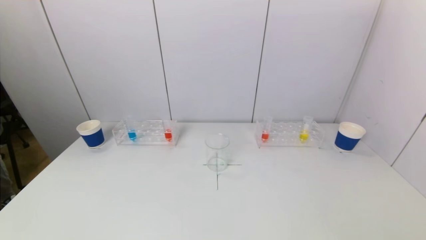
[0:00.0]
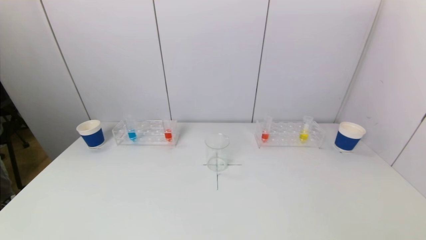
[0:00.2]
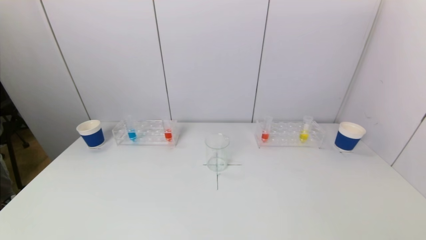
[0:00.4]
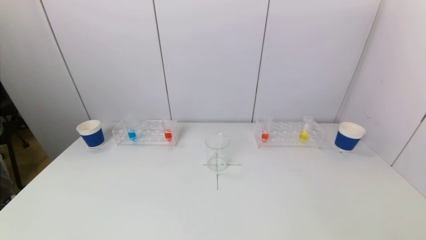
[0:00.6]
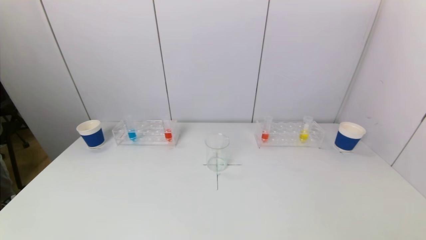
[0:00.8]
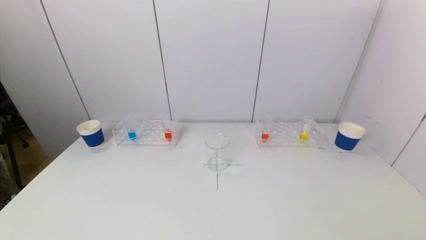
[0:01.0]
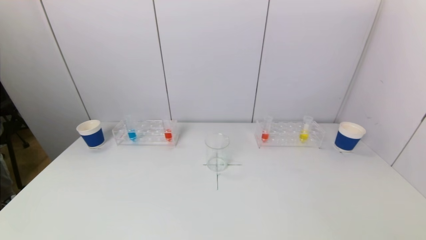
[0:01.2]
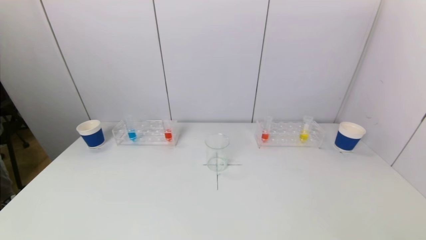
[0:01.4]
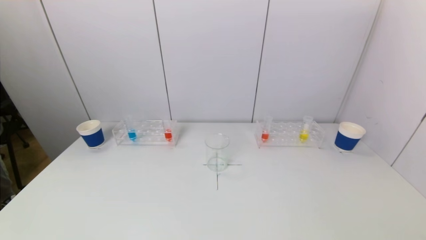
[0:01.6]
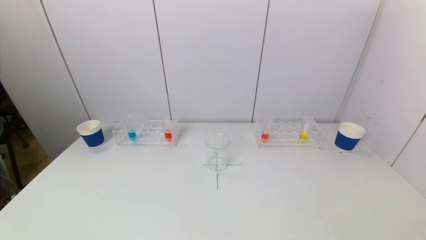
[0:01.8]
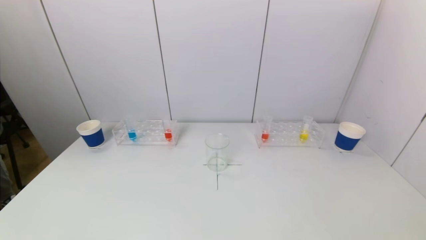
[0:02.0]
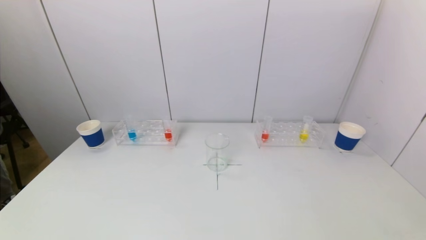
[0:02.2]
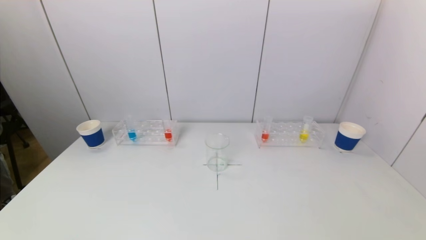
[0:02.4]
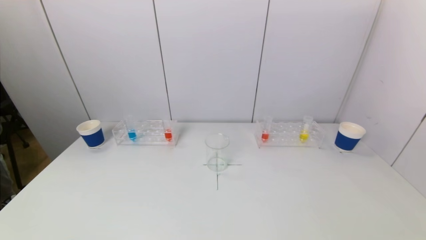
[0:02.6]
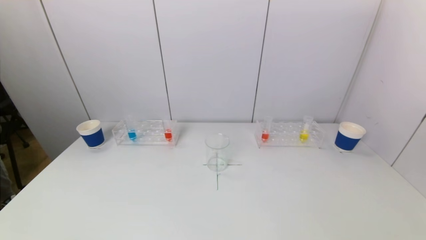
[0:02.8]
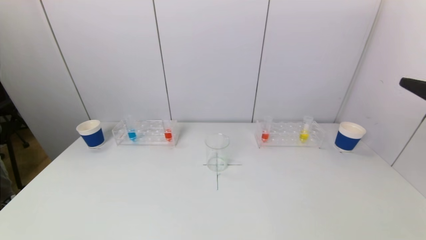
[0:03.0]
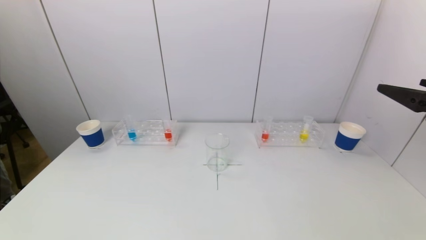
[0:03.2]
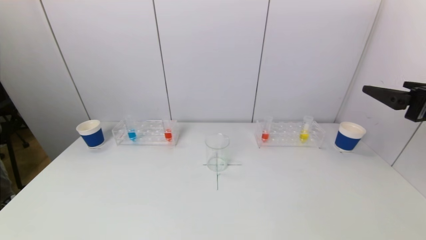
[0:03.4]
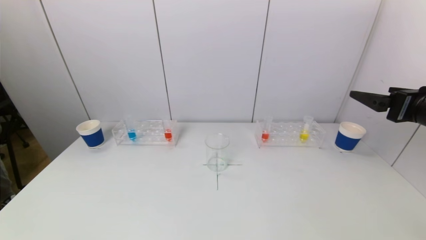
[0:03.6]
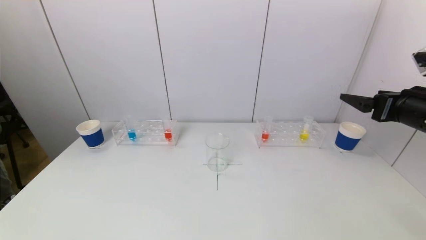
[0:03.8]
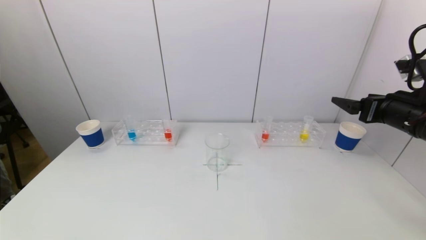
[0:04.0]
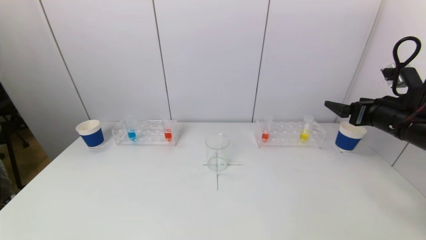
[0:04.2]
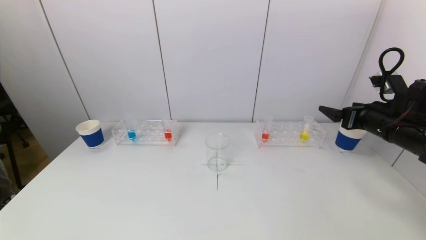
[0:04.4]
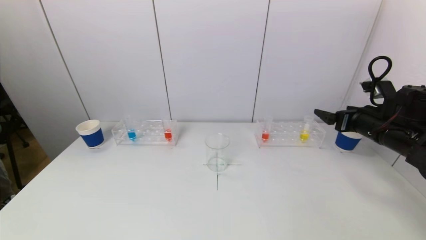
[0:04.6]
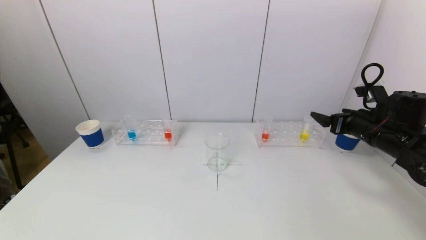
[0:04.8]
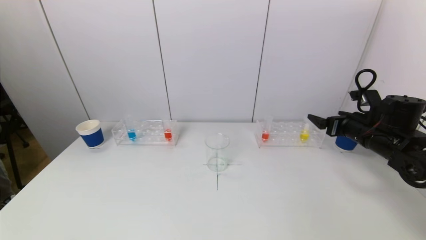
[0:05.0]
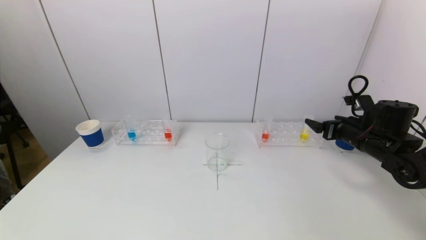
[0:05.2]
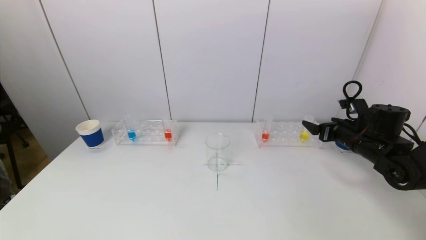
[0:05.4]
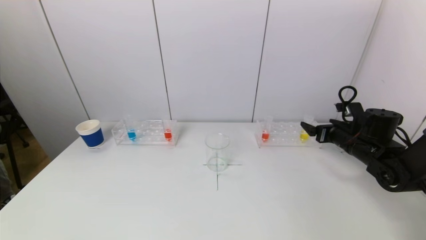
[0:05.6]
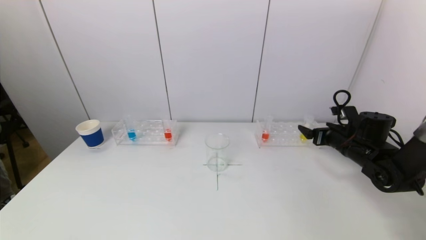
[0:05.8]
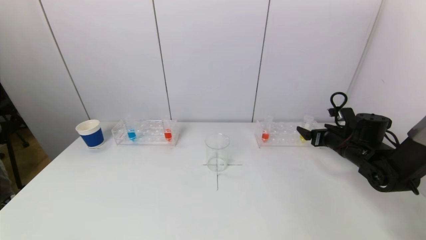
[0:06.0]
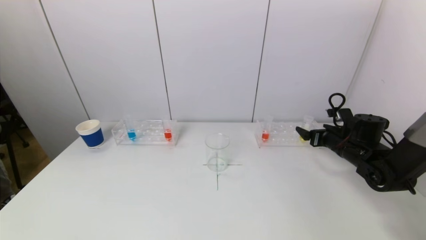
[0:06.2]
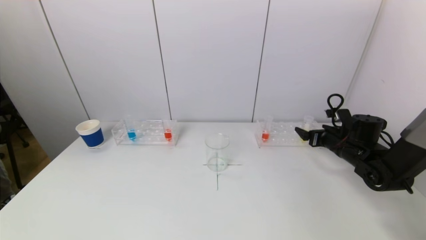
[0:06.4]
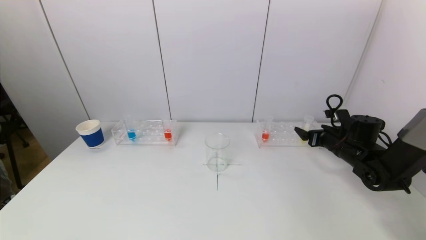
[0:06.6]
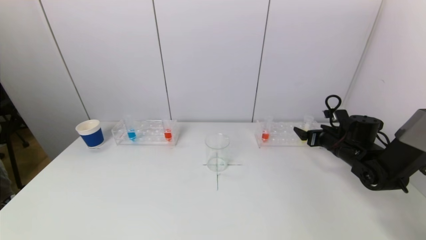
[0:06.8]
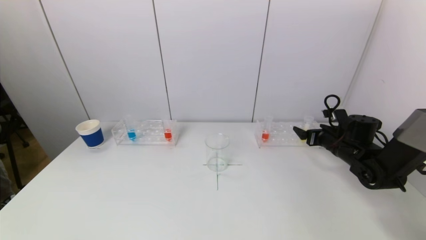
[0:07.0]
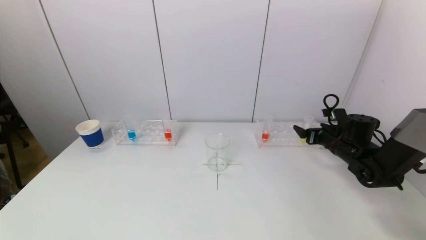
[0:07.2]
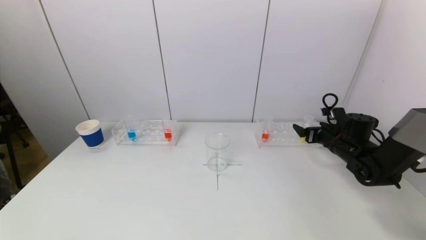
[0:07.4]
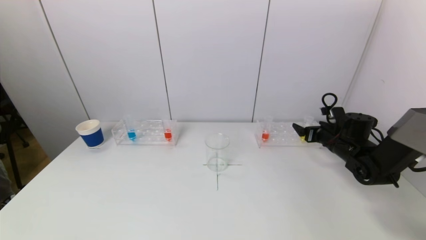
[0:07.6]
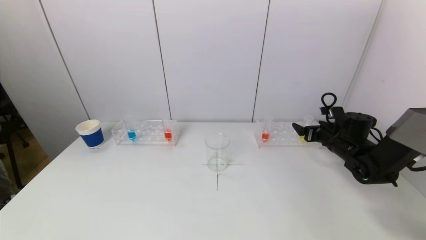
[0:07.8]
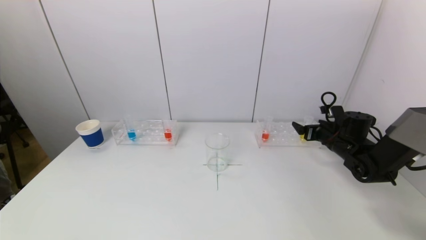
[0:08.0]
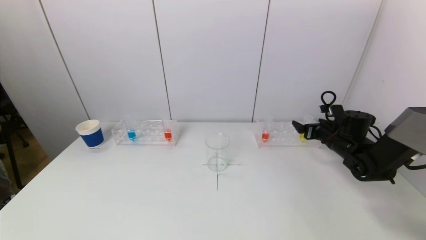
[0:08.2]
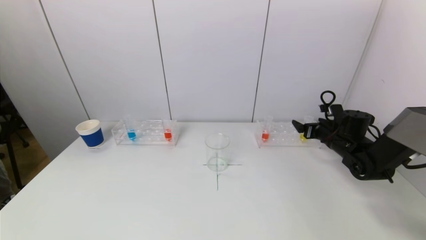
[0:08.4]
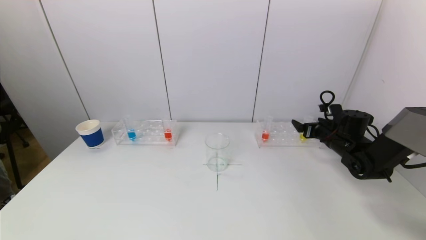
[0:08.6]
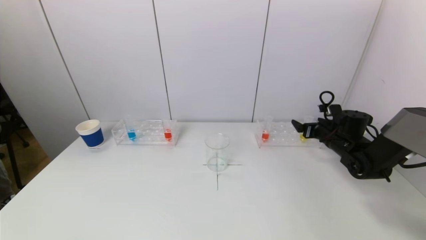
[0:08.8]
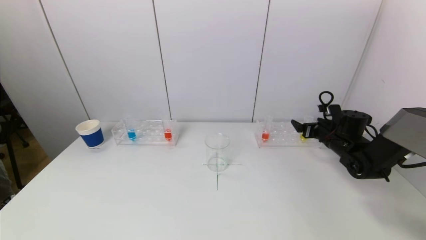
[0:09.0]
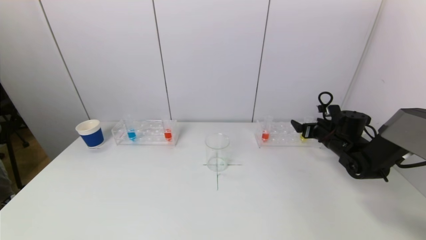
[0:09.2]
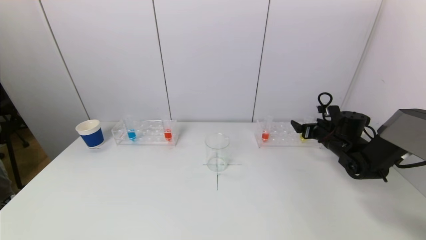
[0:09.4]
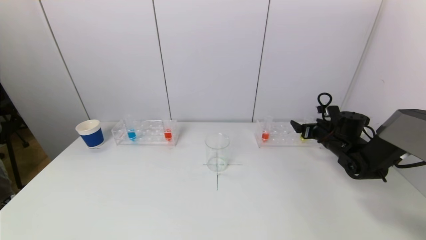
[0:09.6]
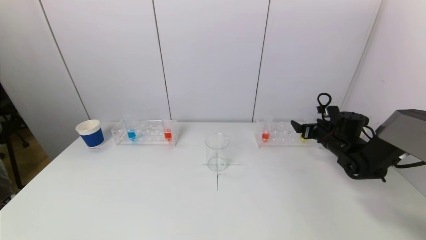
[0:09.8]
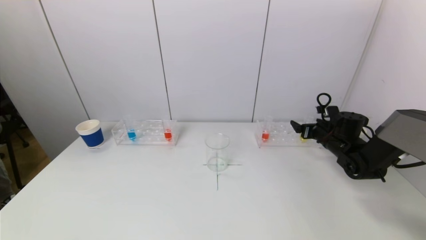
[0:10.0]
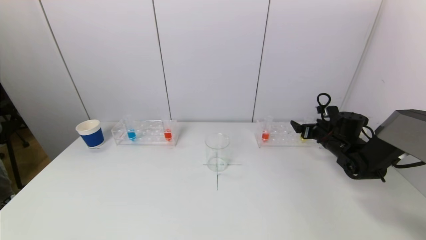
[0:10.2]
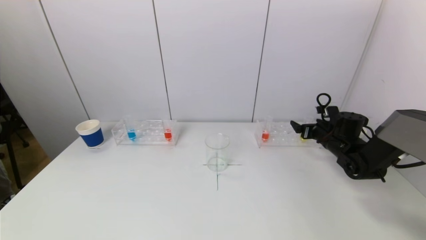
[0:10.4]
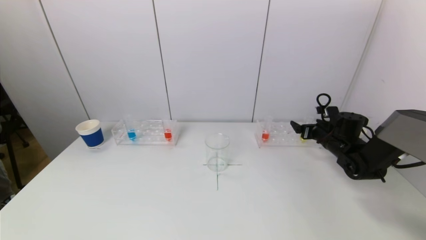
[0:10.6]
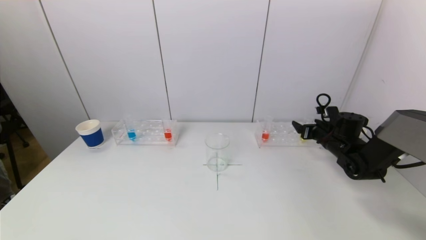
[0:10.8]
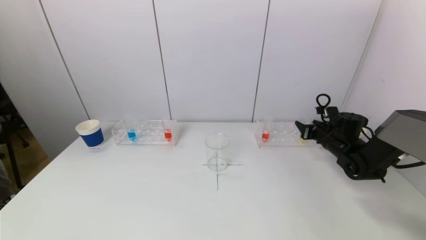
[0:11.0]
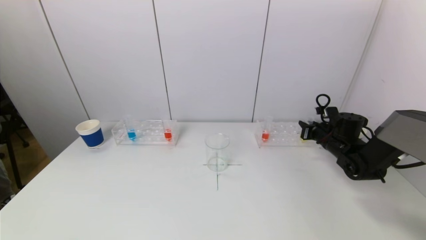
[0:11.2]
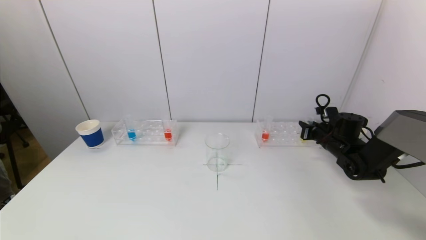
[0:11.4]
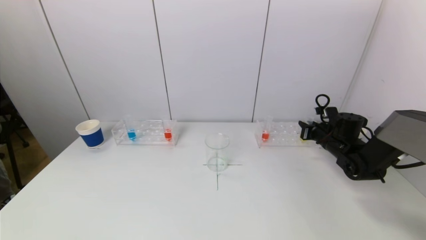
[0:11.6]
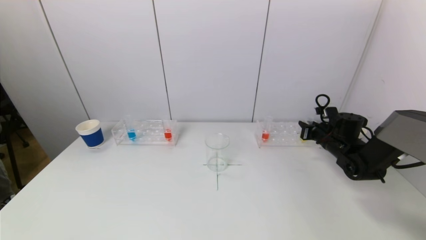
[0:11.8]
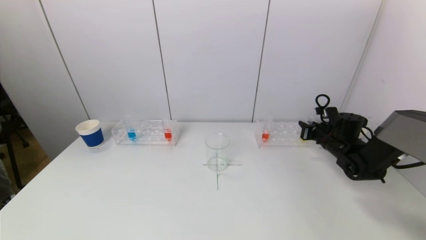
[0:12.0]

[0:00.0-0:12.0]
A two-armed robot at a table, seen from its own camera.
Task of the whole recording: pick up a test tube with pigment on left test tube rack and a test tube with pigment on right test tube rack by grippers and pour them into the beaker.
Step, 0:00.0 to 0:11.8: Grasp the yellow reagent with the right gripper.
0:03.0 to 0:04.4: The right gripper shifts roughly 20 cm forward and downward.
0:04.4 to 0:06.0: The right gripper goes roughly 10 cm downward and forward.
0:06.0 to 0:09.0: There are only small adjustments of the grippers.
0:09.0 to 0:10.4: Both grippers stay about where they are.
0:10.4 to 0:12.0: The right gripper closes.

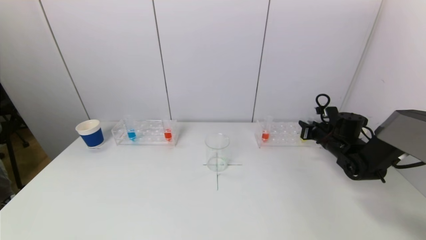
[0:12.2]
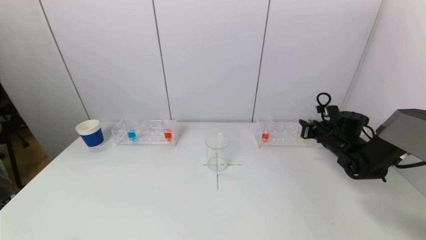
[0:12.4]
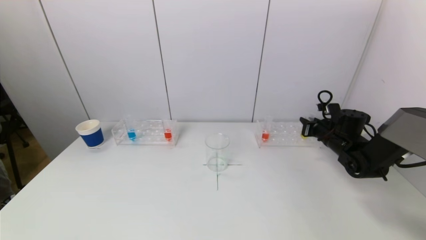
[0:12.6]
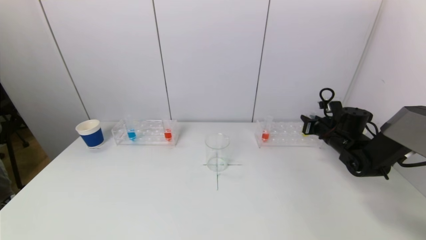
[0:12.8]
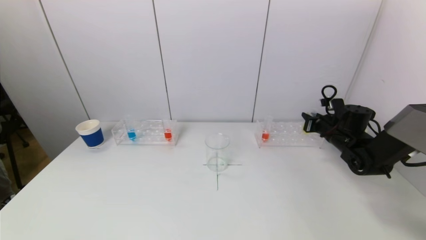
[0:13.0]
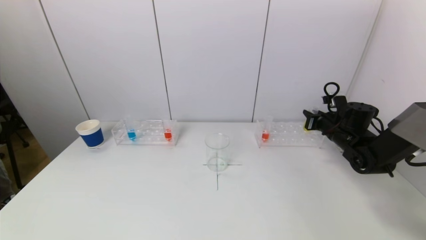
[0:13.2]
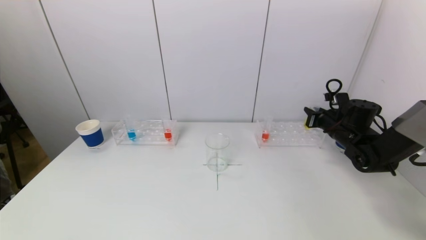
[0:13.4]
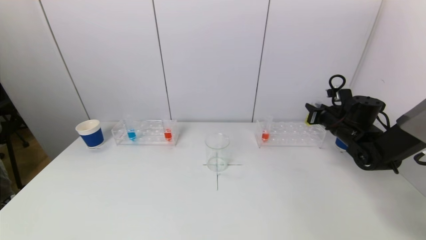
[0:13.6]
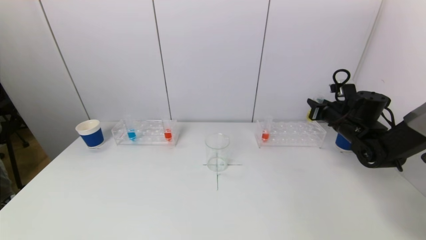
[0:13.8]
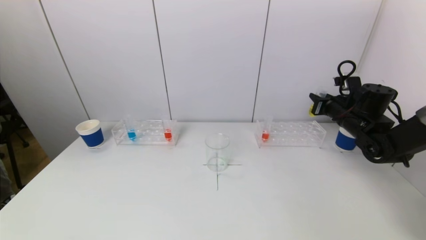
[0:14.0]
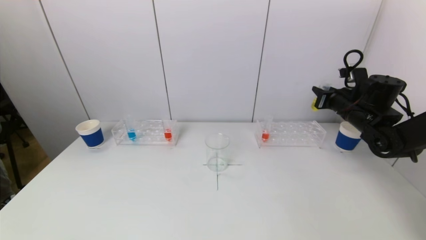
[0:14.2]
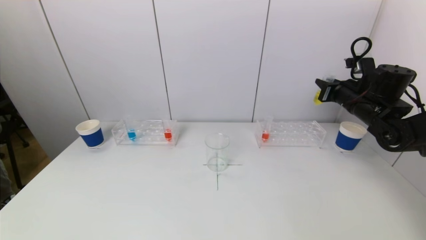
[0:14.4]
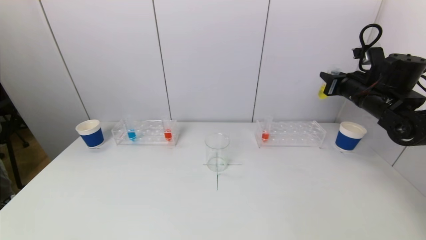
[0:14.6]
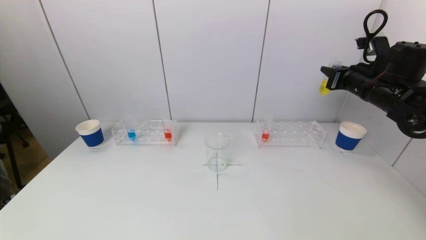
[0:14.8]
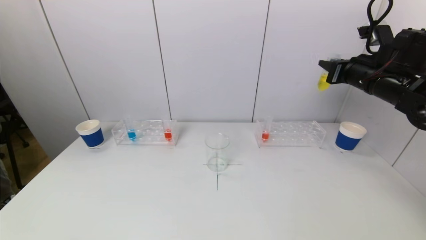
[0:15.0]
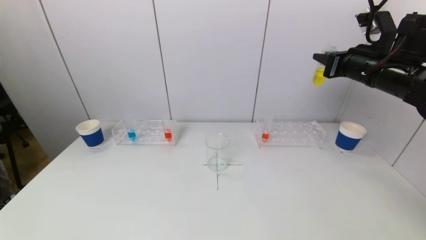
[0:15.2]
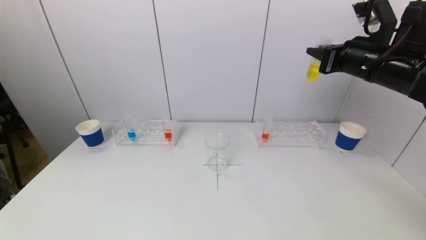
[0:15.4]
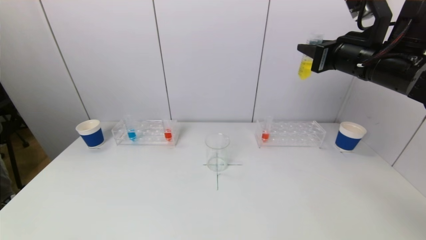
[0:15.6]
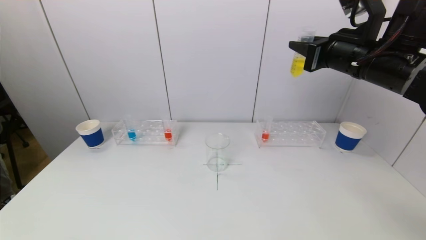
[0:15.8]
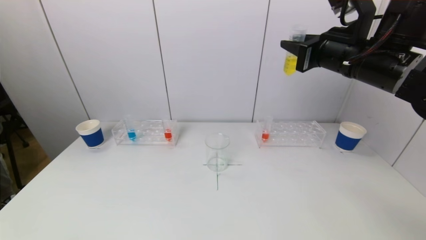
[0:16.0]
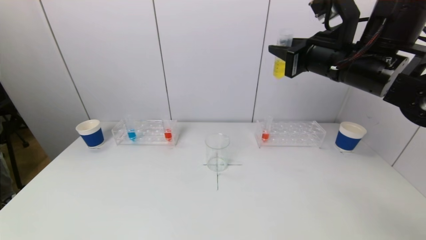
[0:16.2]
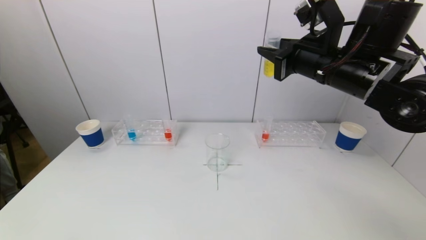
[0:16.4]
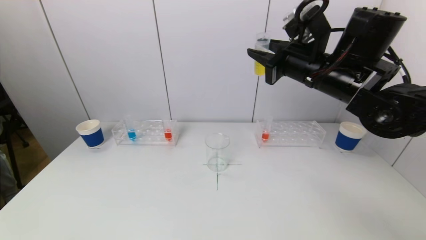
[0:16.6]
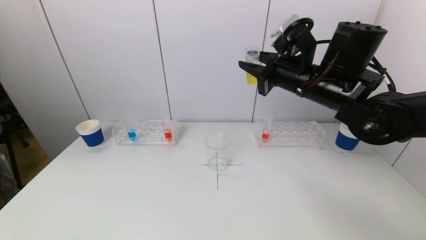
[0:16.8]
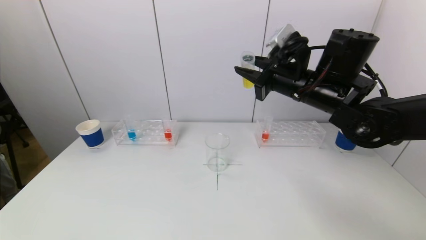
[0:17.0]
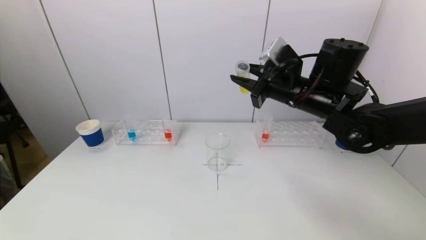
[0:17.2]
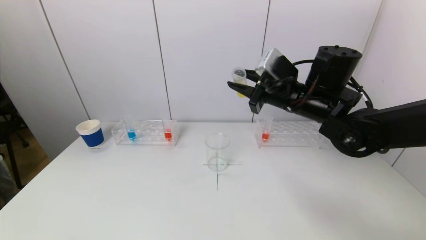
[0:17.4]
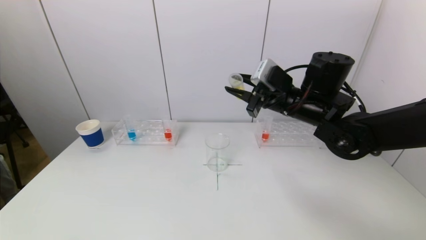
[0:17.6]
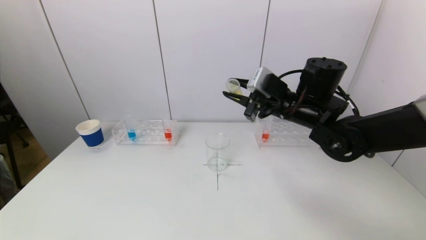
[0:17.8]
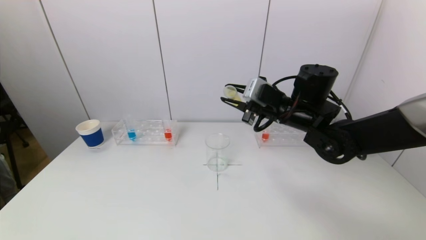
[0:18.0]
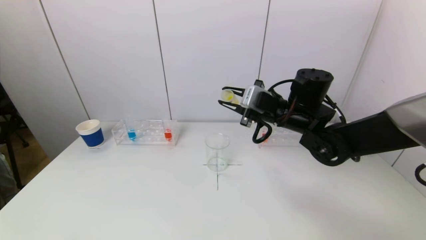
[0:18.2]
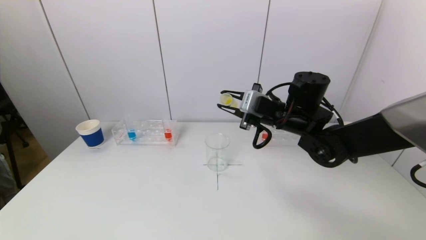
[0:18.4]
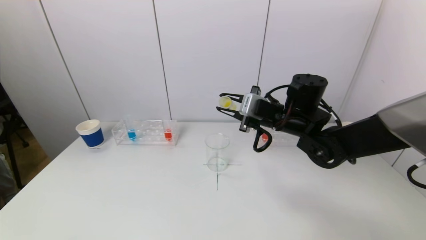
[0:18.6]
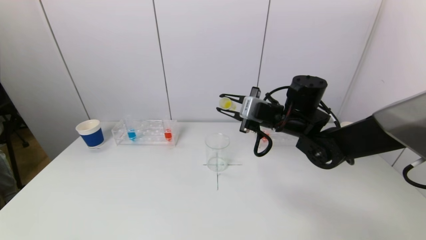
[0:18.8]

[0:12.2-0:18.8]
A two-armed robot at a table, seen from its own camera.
Task of the whole recording: pick up a test tube with pigment on left test tube rack and a test tube with pigment on right test tube rack by grippers and pour them into the beaker.
0:12.2 to 0:13.8: The right gripper is displaced upward by roughly 5 cm.
0:13.8 to 0:15.4: The right gripper shifts approximately 20 cm upward and backward.
0:15.4 to 0:17.2: The right gripper goes about 15 cm to the left and downward.
0:17.2 to 0:18.8: The right gripper goes some 5 cm downward.
